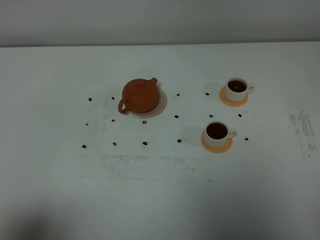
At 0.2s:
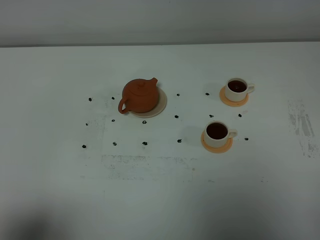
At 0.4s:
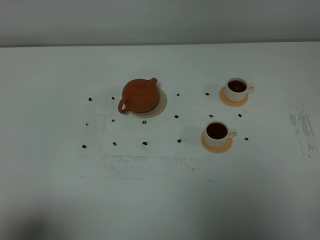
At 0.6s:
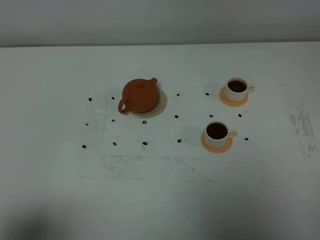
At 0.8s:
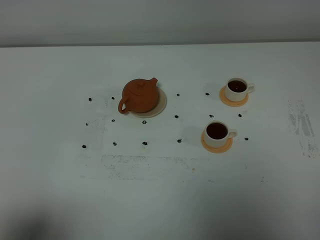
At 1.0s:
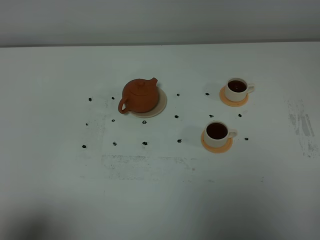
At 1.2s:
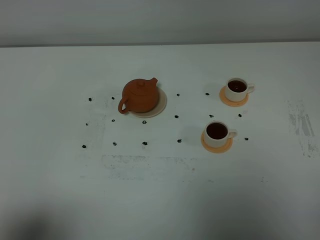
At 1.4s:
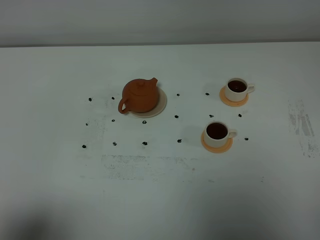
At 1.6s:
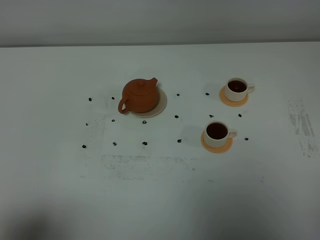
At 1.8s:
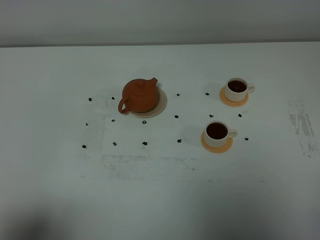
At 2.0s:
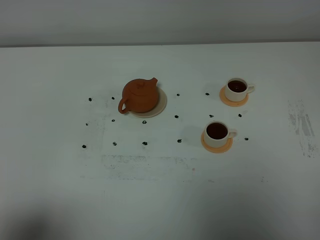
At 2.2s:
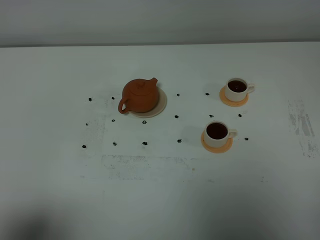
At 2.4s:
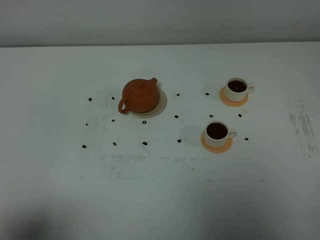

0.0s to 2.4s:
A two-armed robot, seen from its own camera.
Task of the whole recording: grasp the brown teapot and pour the tea into the two white teacups one by one, put the brown teapot back in its original place.
0.0s to 2.4s: The two grippers keep their place.

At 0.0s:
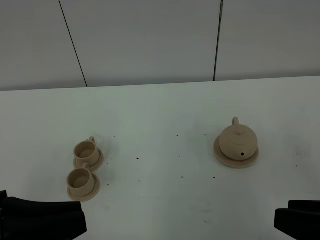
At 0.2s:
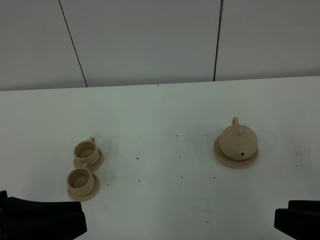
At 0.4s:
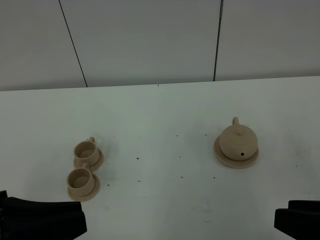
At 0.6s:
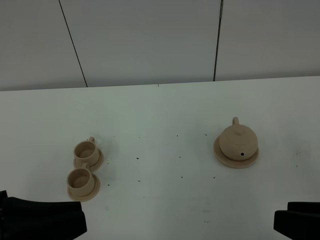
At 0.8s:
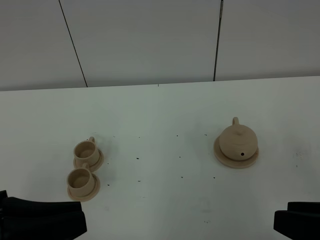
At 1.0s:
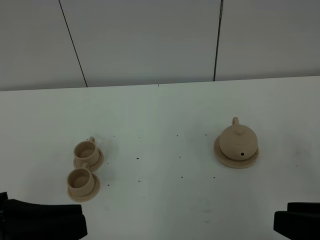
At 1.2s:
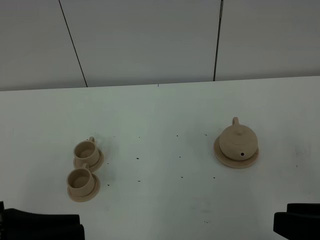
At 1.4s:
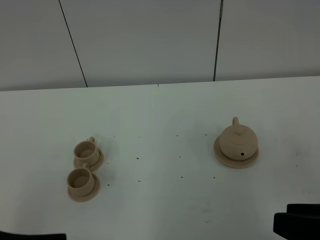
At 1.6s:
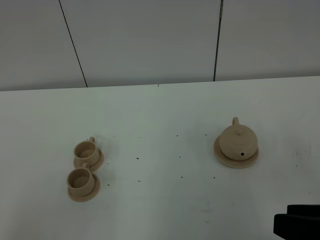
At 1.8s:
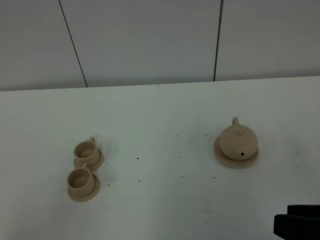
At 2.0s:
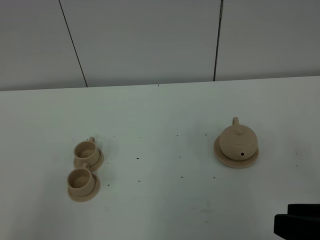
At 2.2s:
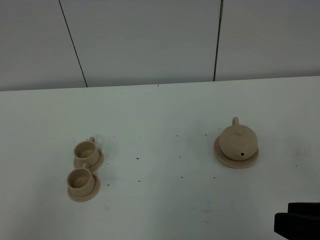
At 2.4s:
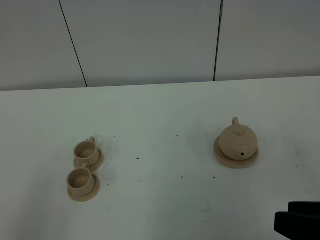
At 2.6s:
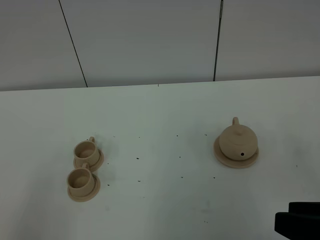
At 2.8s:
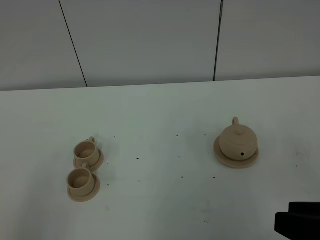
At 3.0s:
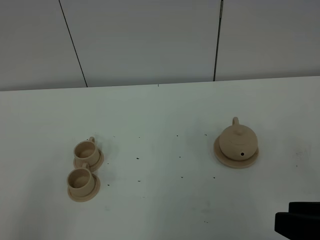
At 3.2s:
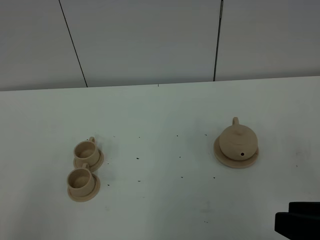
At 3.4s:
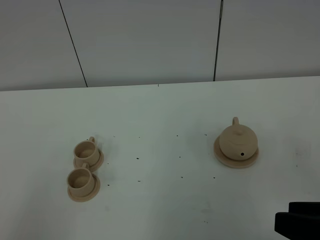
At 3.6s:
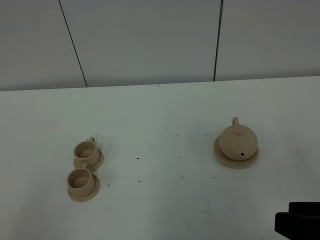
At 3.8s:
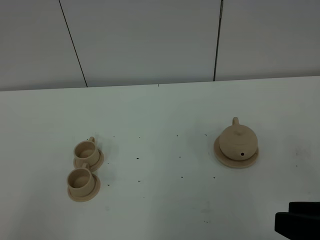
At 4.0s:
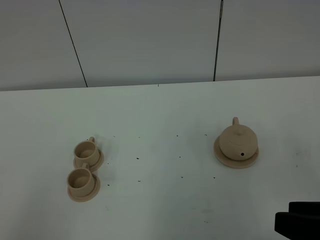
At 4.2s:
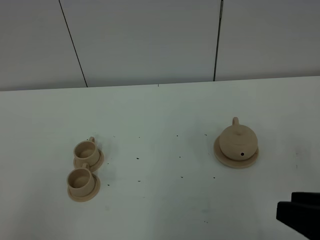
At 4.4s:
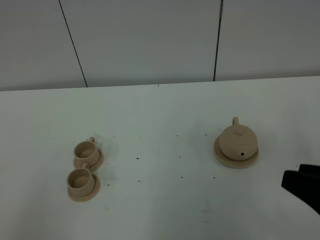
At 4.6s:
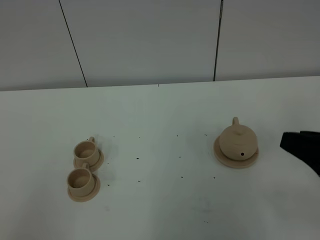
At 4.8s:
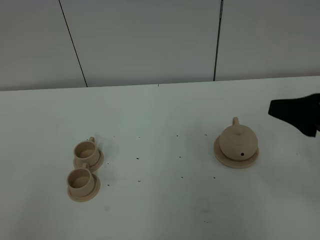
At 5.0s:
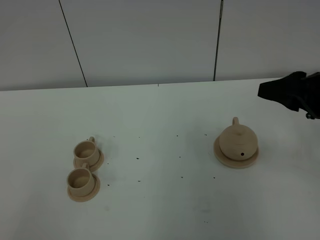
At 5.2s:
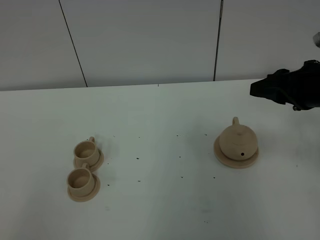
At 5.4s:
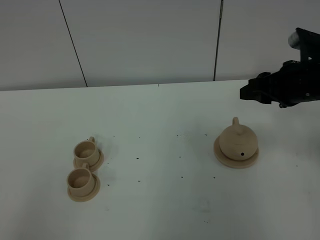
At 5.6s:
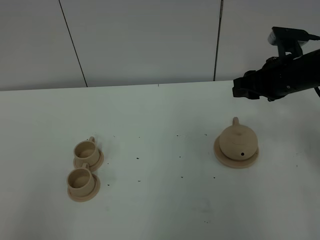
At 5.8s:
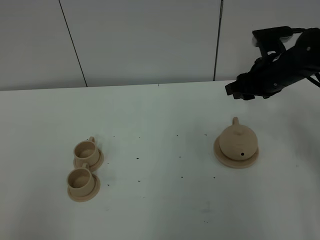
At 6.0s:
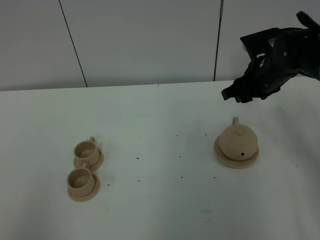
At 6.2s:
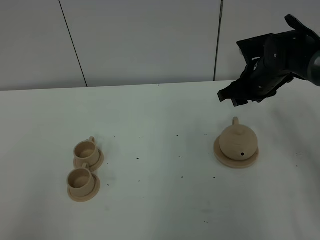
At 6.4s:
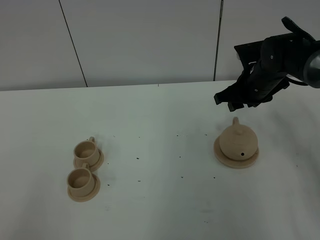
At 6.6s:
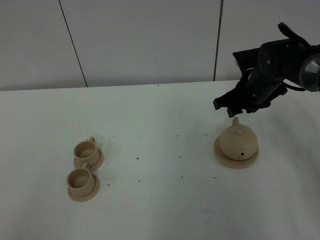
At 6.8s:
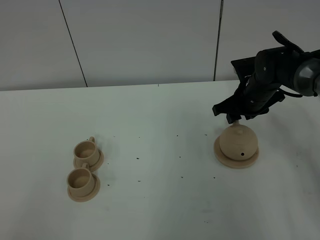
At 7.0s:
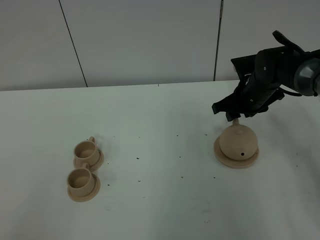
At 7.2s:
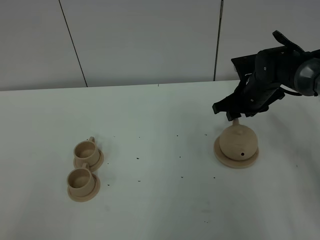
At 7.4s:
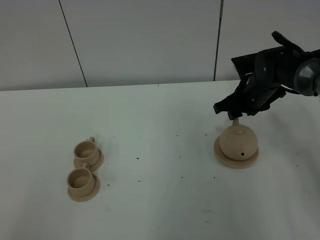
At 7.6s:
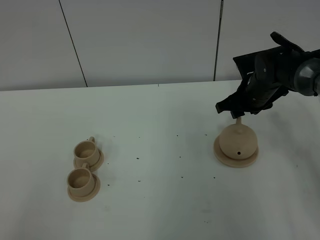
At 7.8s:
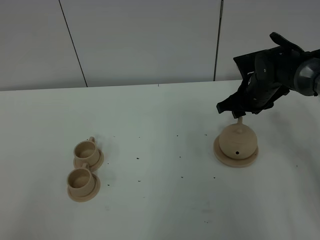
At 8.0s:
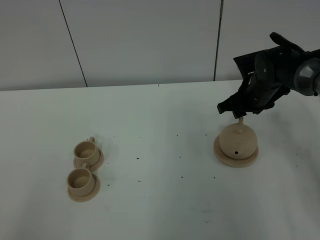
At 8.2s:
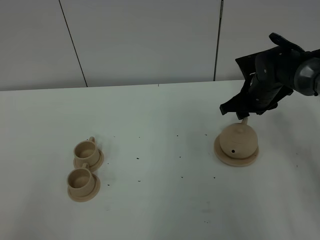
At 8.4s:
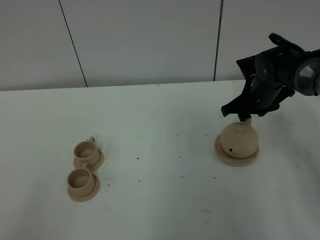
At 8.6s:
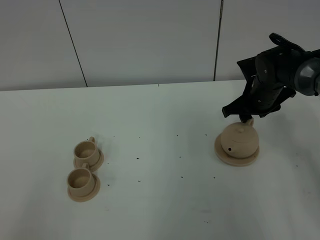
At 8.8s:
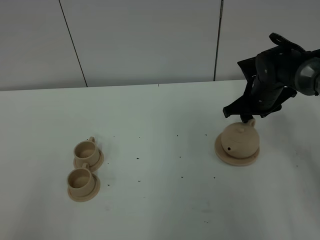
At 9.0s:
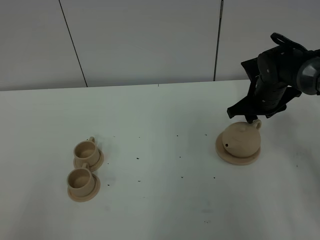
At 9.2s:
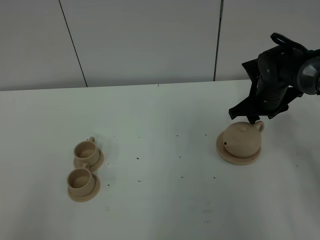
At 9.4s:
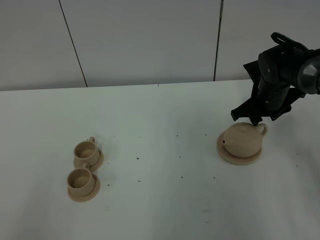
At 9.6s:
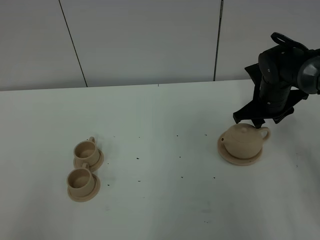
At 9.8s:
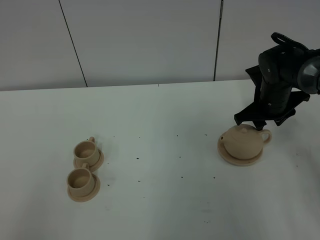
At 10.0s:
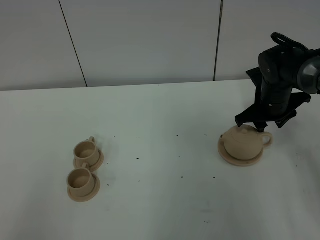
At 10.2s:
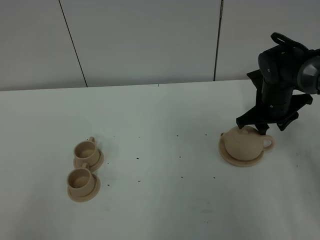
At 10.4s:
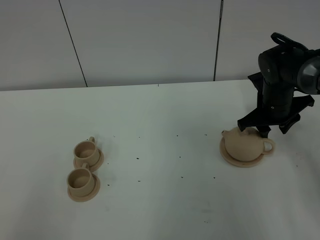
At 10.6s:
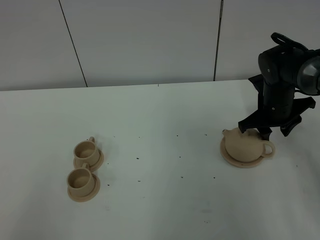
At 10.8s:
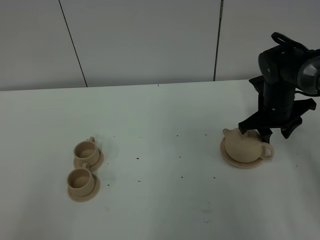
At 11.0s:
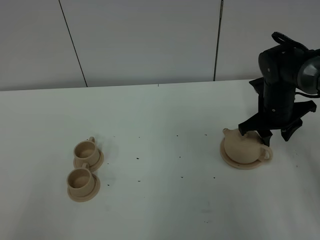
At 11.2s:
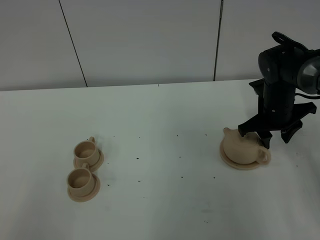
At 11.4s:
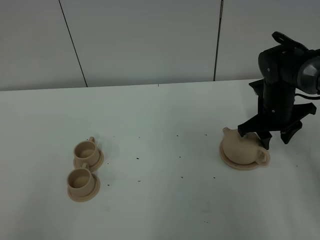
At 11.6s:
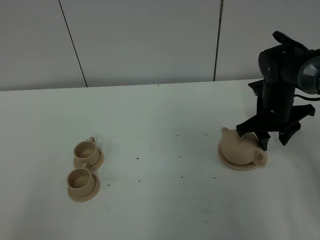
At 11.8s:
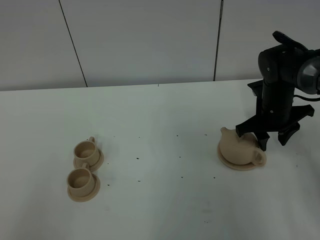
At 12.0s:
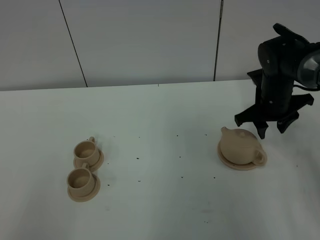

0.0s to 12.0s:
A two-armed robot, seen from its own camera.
Task of the whole recording: grasp the brown teapot and pour the tea into the two brown teacups one by one, put the brown teapot back in its original place.
0.0s to 1.6s: The left gripper is displaced backward by roughly 5 cm.
3.0s to 4.4s: There are only small adjustments of the grippers.
4.4s to 6.0s: The right gripper travels forward by about 35 cm.
6.0s to 7.6s: The right gripper heads downward, covering approximately 5 cm.
7.6s to 9.0s: There are only small adjustments of the grippers.
9.0s to 12.0s: The grippers move only a little.

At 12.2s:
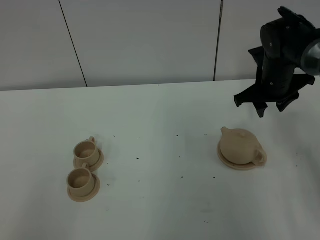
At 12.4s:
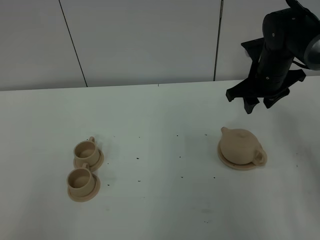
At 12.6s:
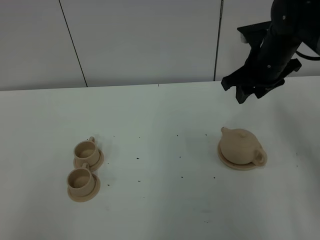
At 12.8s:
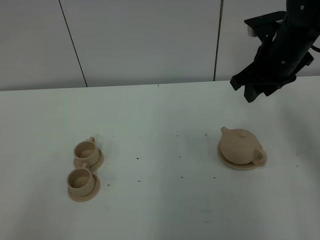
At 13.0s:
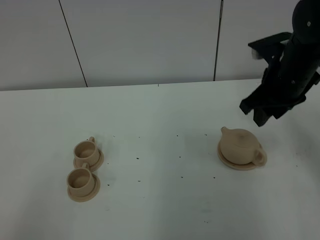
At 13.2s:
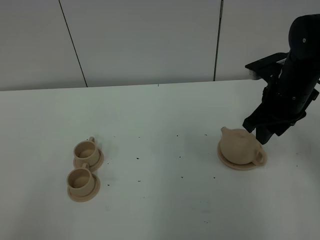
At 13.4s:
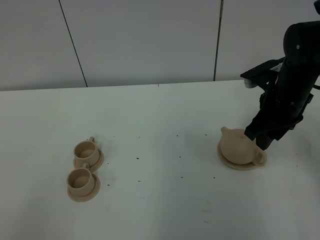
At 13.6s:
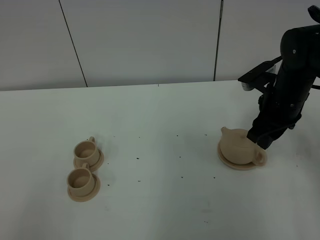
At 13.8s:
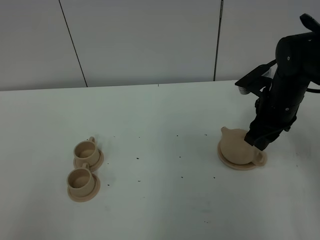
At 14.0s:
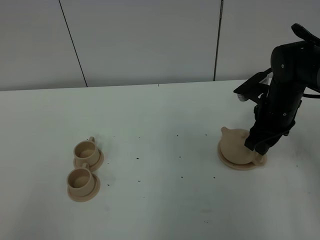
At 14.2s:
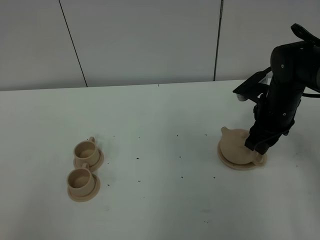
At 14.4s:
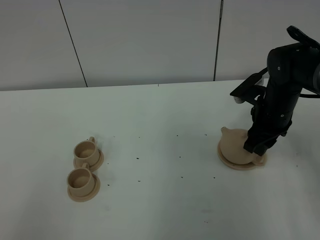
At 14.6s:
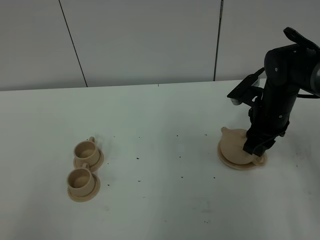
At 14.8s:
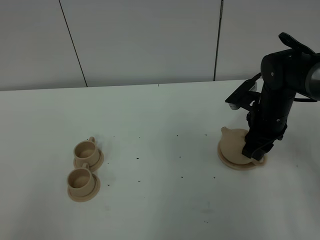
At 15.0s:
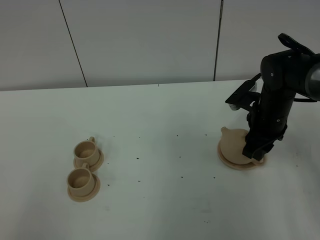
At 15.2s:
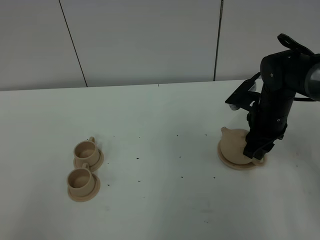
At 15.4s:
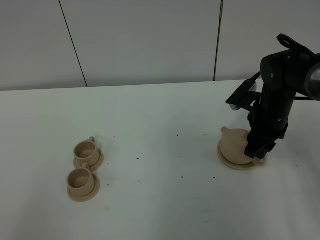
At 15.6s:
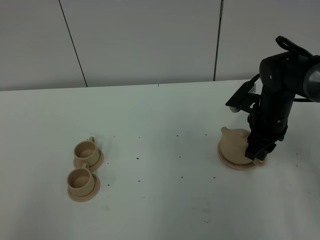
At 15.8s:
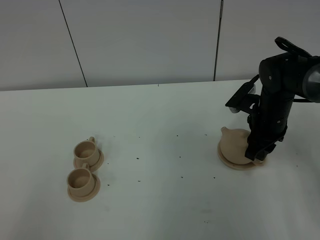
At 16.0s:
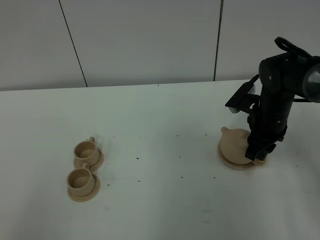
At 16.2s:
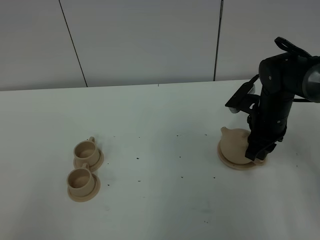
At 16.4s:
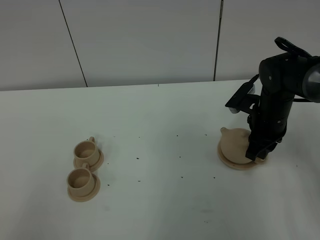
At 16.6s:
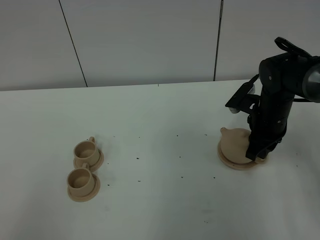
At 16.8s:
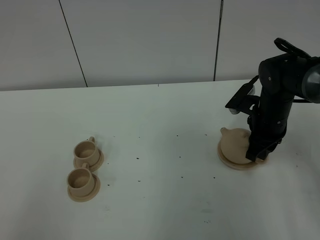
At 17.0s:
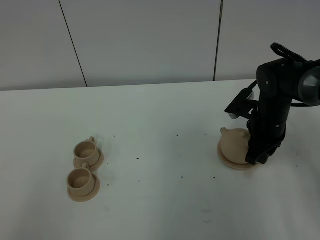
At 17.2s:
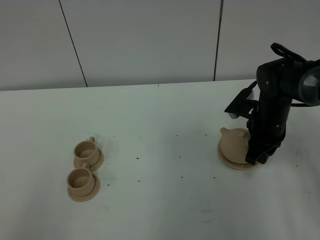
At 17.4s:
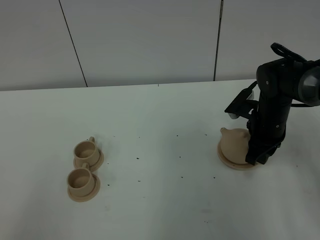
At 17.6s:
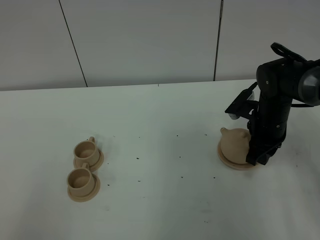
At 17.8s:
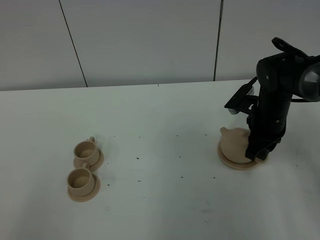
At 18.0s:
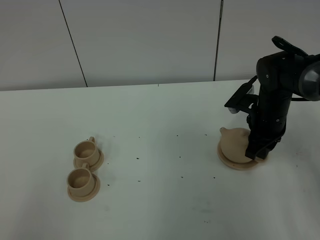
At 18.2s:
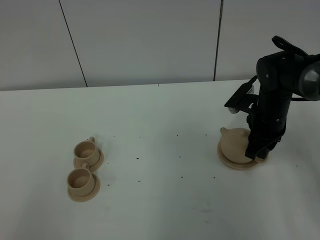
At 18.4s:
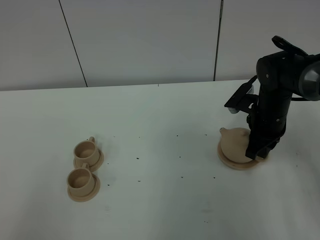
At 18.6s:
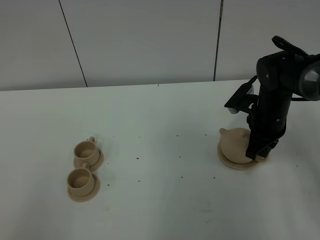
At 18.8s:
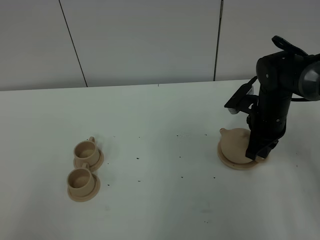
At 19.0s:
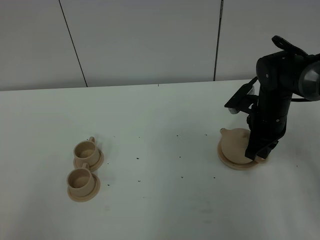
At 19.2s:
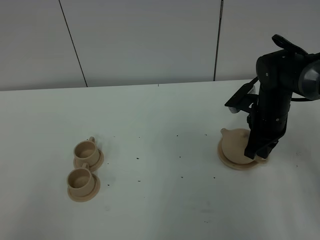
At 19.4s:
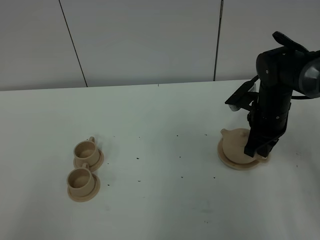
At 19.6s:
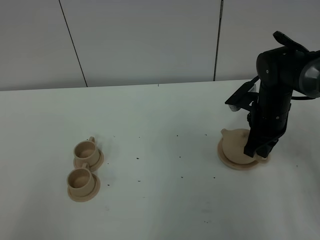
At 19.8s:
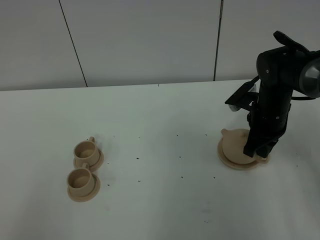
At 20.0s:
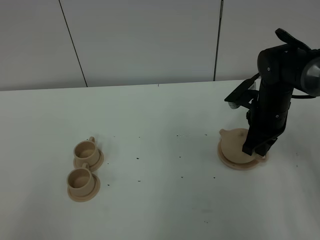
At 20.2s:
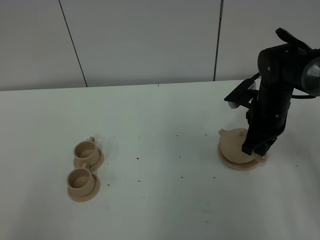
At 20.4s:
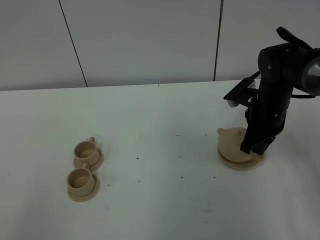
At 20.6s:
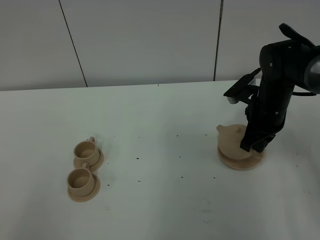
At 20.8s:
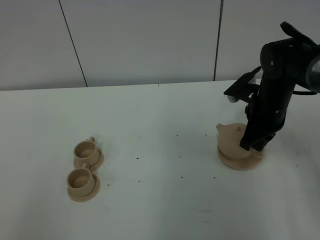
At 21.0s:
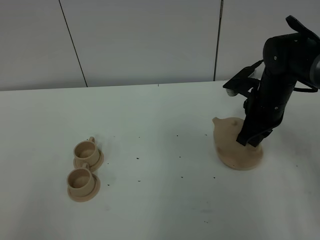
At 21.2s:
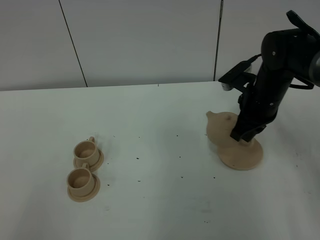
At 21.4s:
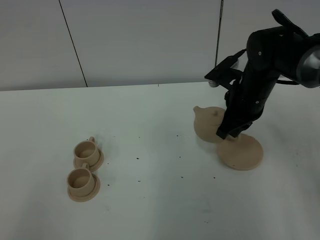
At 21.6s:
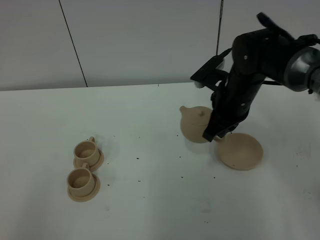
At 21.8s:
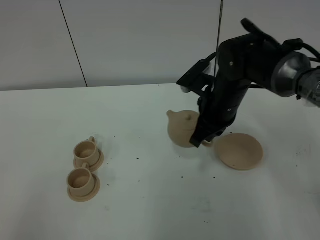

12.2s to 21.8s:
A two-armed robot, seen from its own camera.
Task of the whole recording: grasp the brown teapot and pour the tea into the two brown teacups one by one, put the brown teapot back in its original place.
Step, 12.2s to 20.8s: Pick up the teapot with the right gripper.
12.2s to 13.8s: The right gripper goes approximately 5 cm backward, and moves approximately 10 cm upward and comes back.
13.8s to 17.0s: The grippers stay close to where they were, moving slightly.
17.0s to 18.6s: The right gripper closes its fingers.
18.6s to 20.2s: Both grippers stay put.
20.2s to 21.8s: The right gripper heads to the left, covering some 10 cm.
